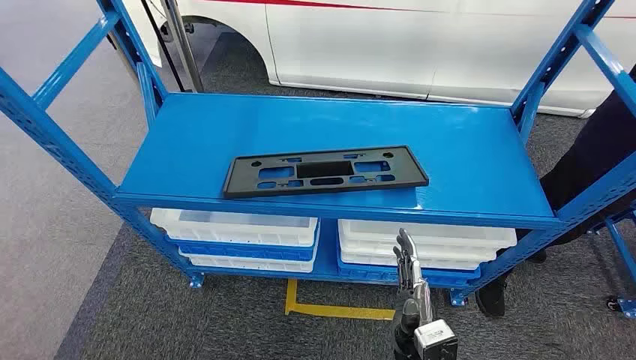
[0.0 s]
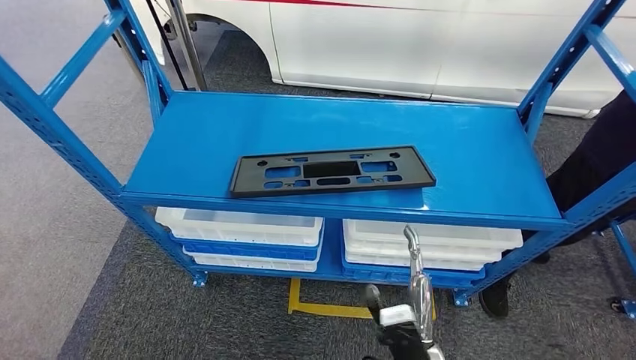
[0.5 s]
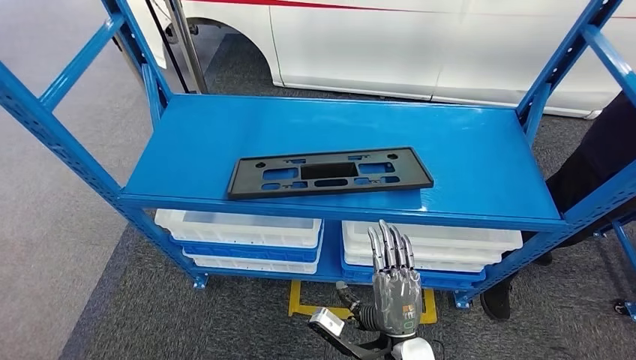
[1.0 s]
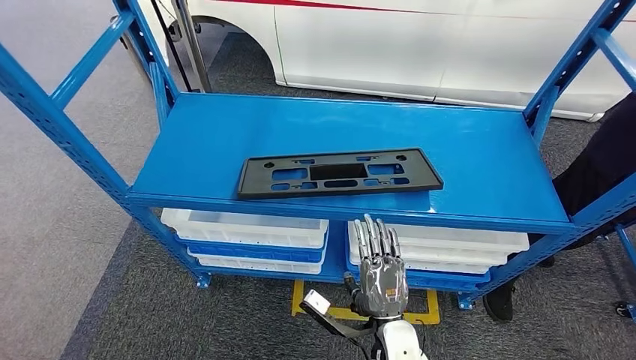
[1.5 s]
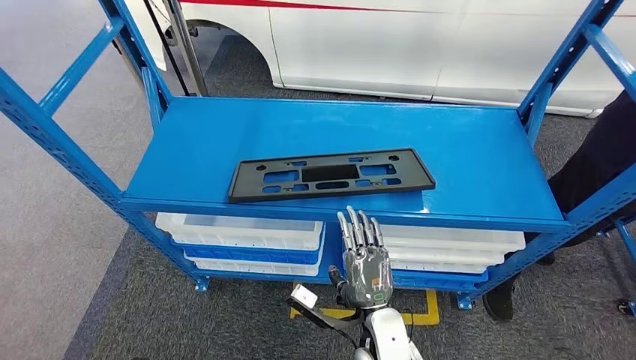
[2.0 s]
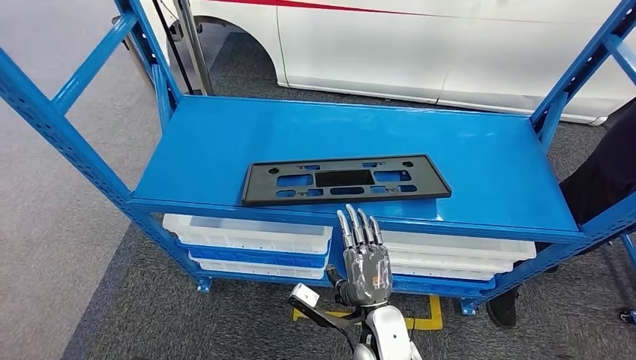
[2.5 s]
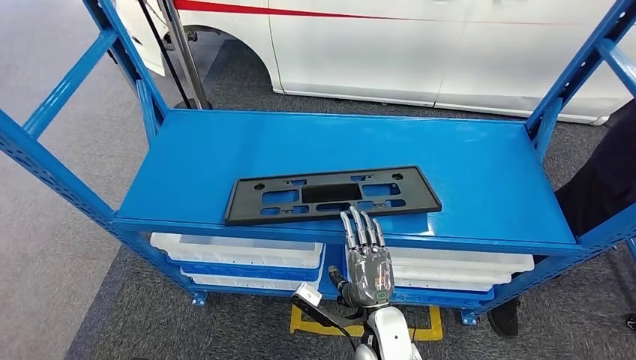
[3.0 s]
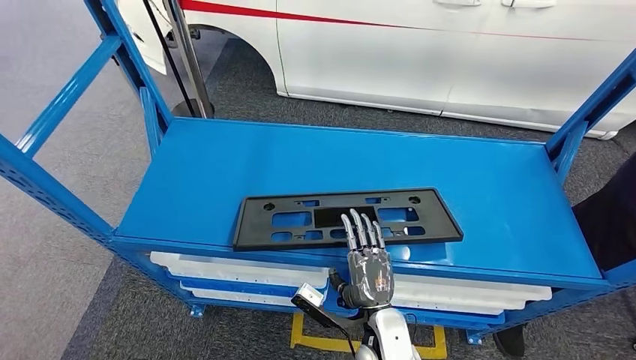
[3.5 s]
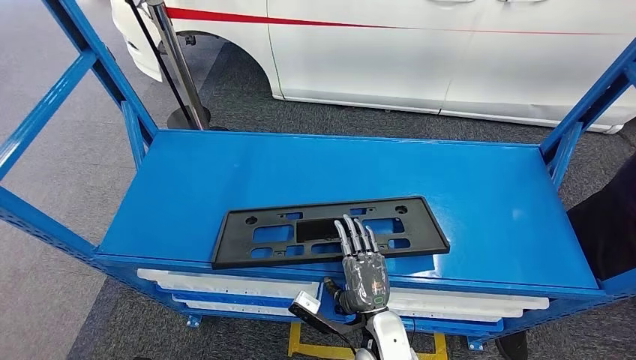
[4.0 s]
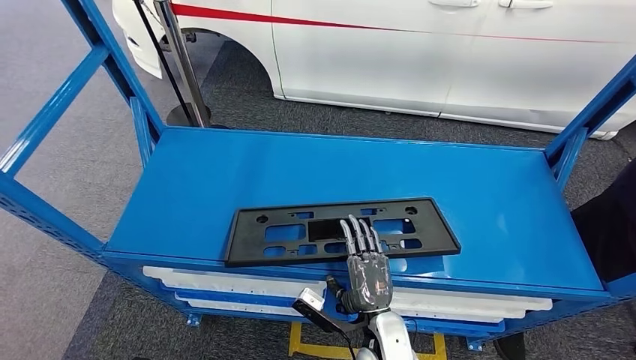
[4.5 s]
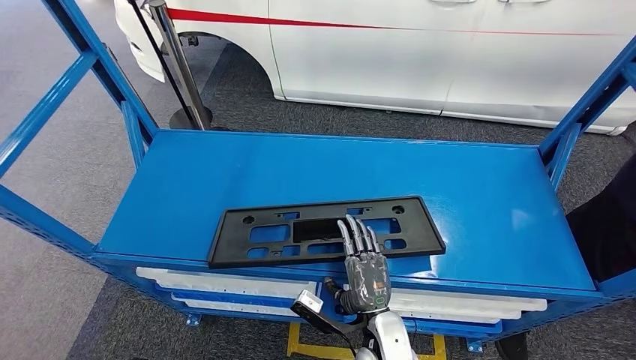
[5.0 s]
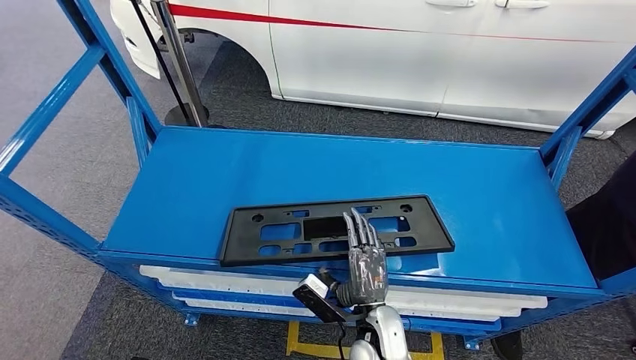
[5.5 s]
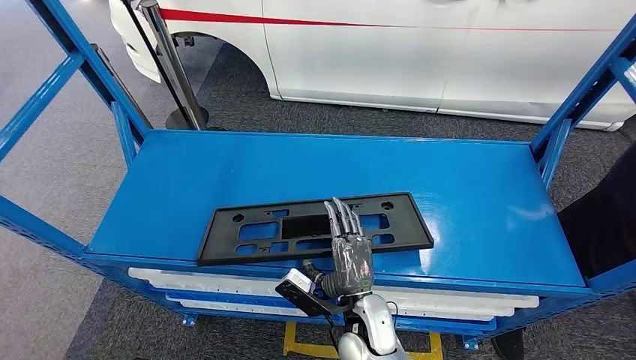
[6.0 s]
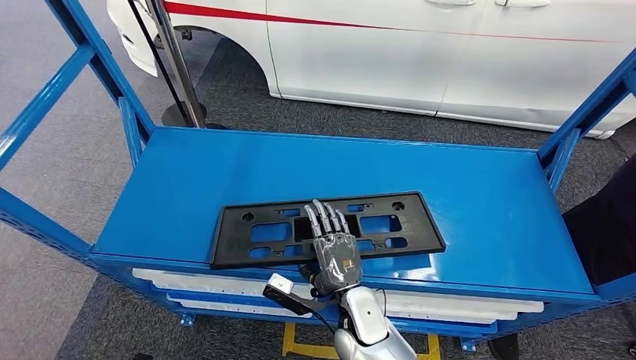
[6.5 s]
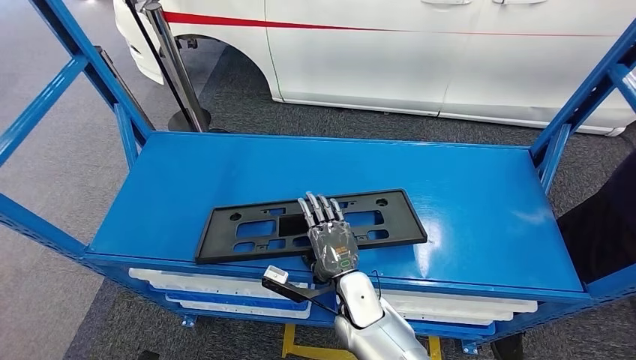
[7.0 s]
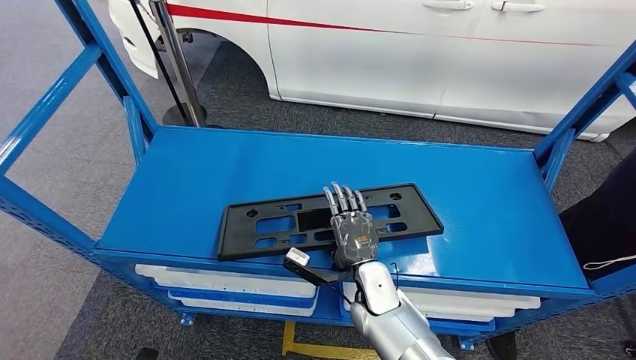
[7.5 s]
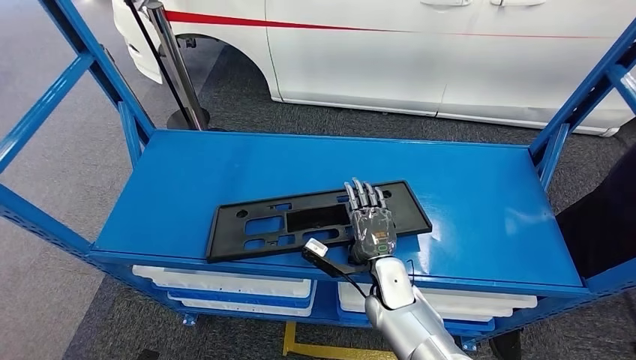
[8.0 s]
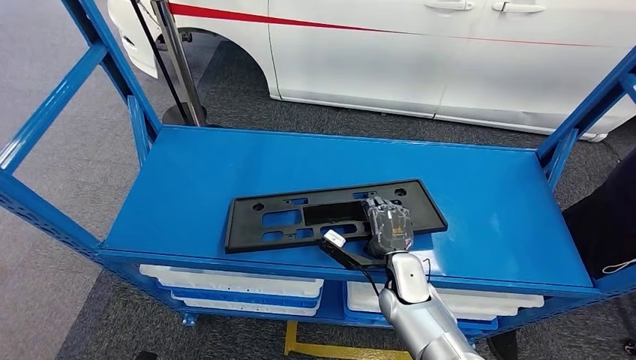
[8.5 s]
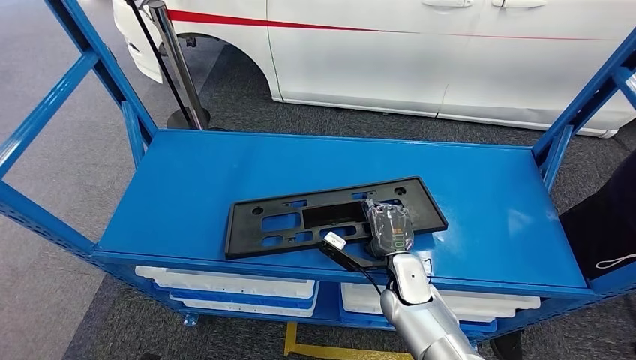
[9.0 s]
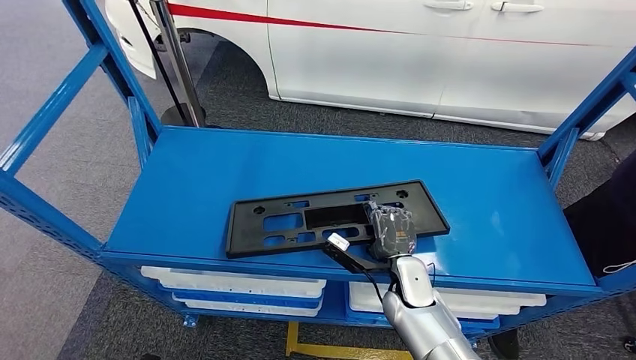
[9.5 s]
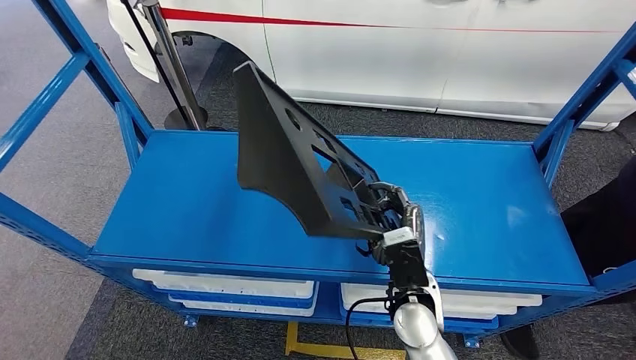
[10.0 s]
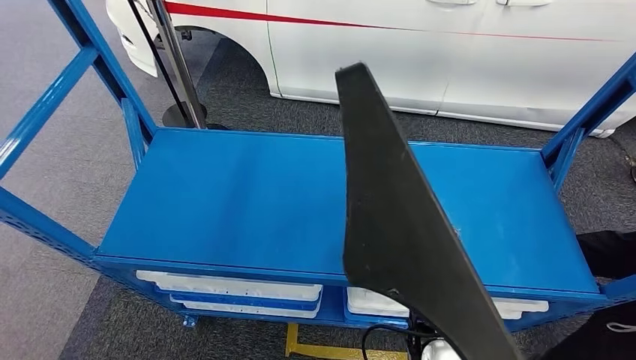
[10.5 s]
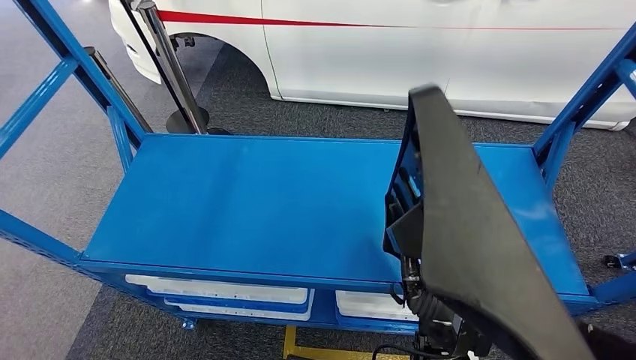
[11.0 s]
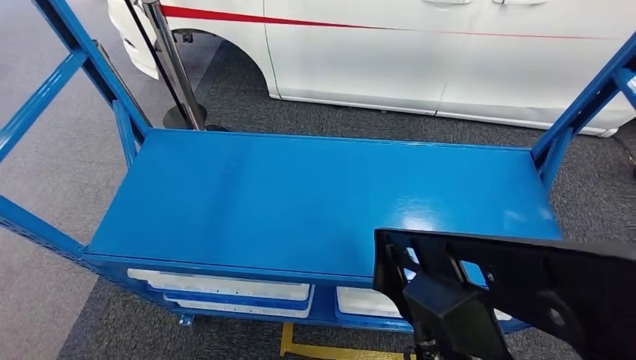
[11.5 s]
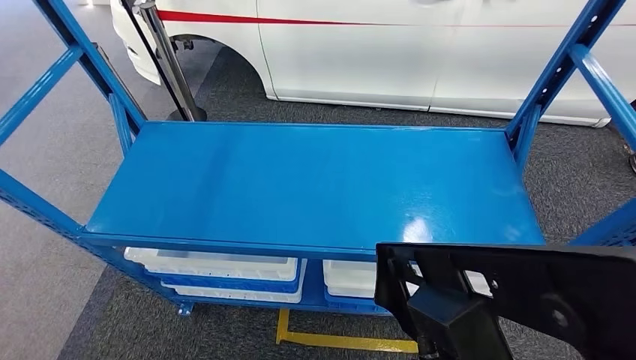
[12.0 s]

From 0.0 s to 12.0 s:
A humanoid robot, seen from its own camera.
Step, from 0.0 s to 11.0 s: Pick up the large material from the shelf.
From 4.0 s to 6.0 s: There are only small adjustments of the hands.
From 6.0 s to 8.0 s: The right hand goes roughly 10 cm forward and to the right.

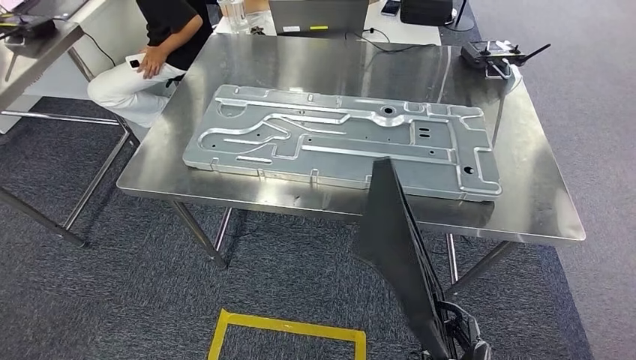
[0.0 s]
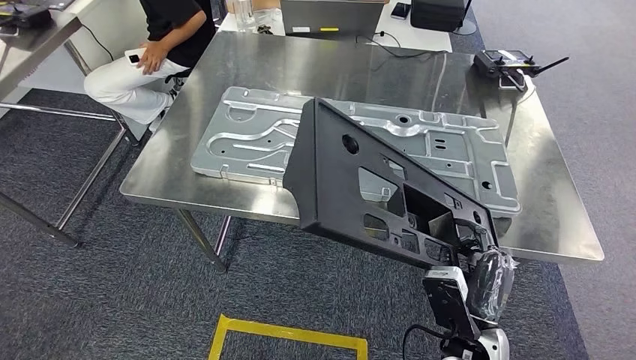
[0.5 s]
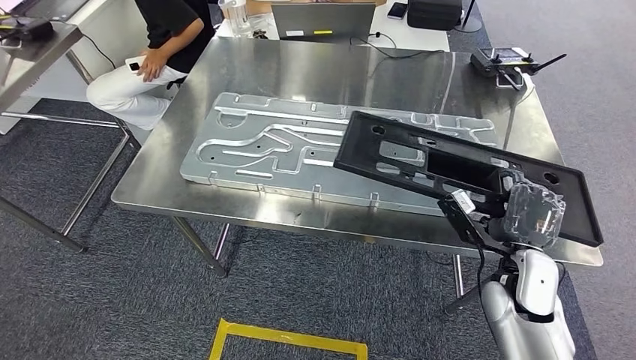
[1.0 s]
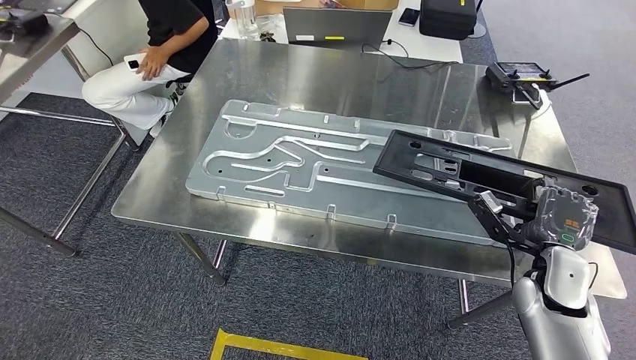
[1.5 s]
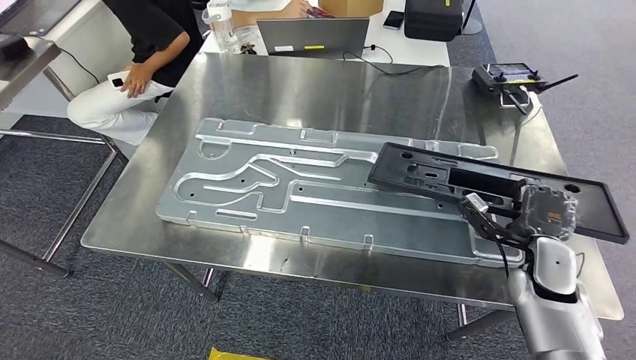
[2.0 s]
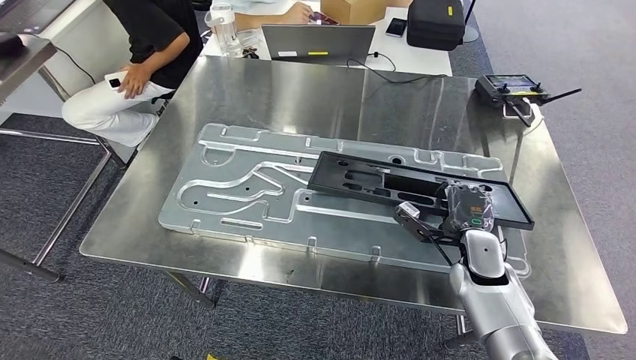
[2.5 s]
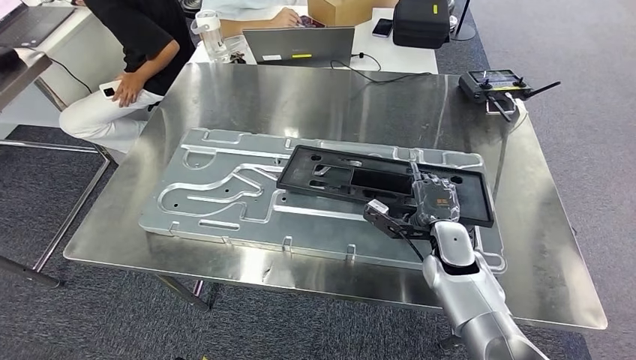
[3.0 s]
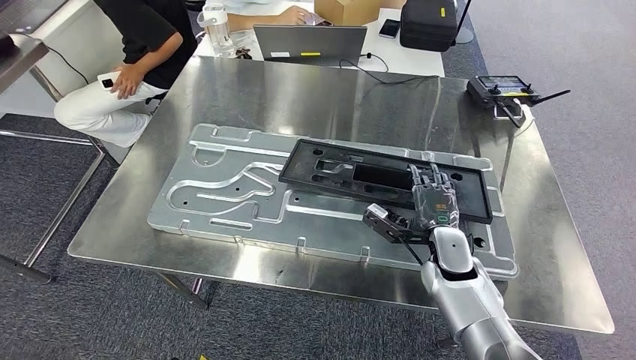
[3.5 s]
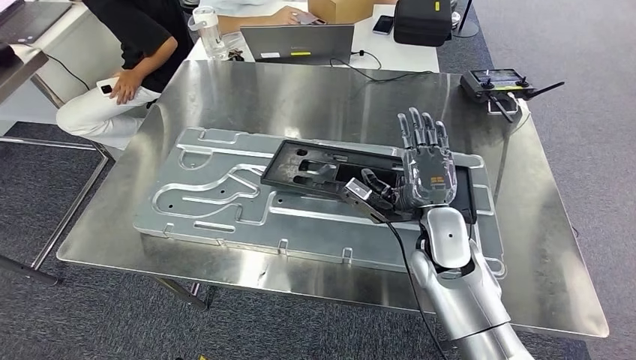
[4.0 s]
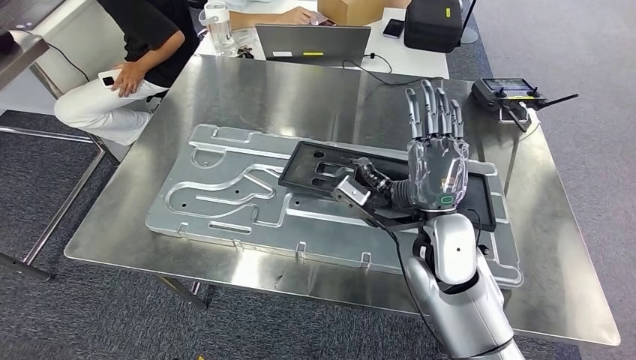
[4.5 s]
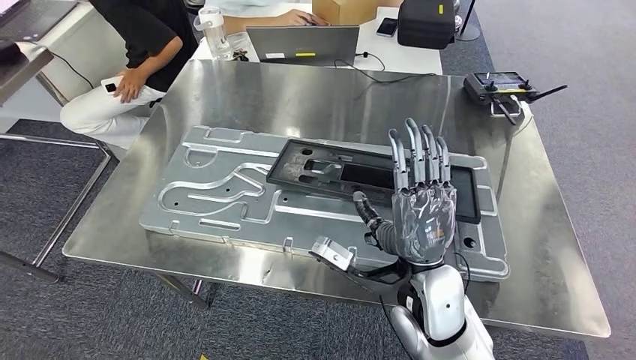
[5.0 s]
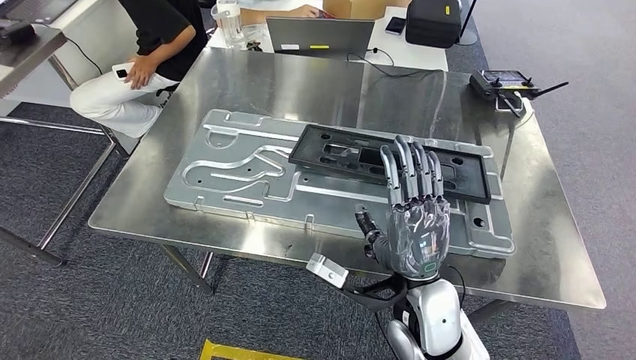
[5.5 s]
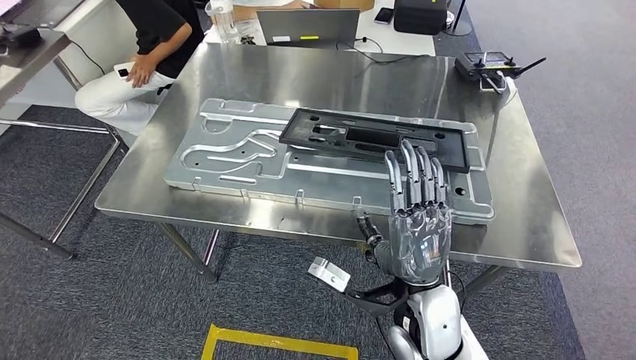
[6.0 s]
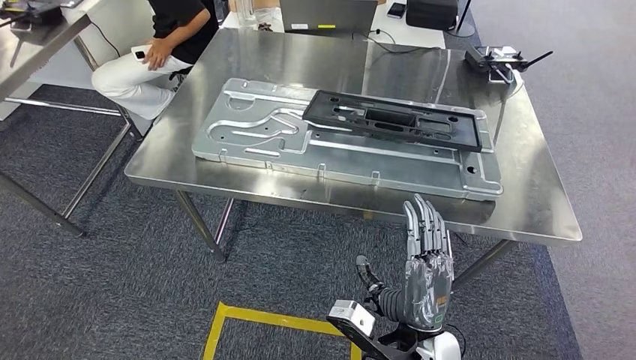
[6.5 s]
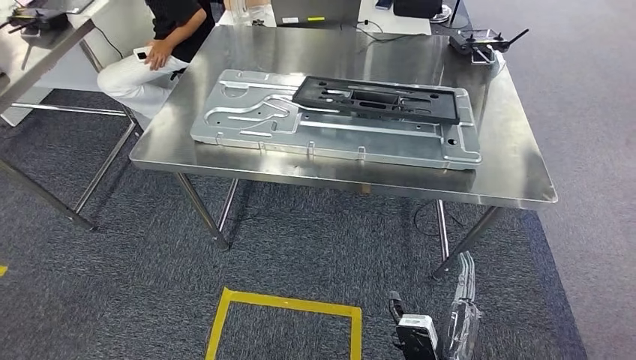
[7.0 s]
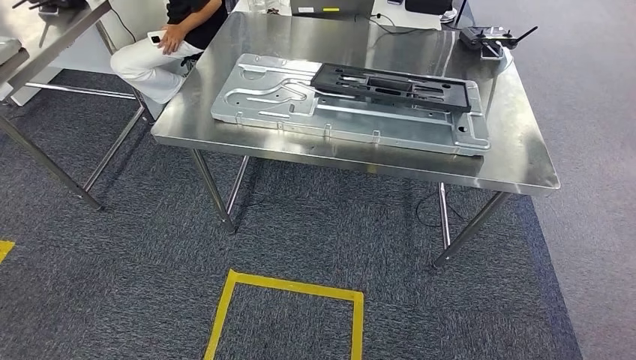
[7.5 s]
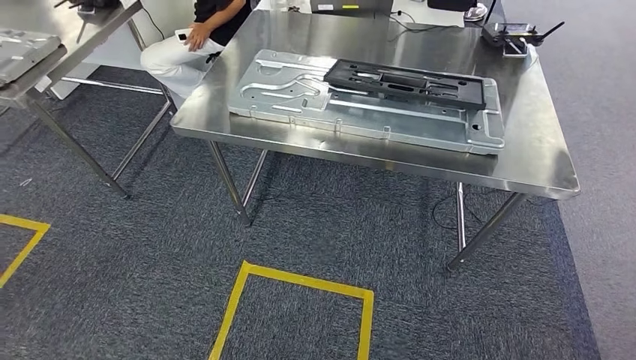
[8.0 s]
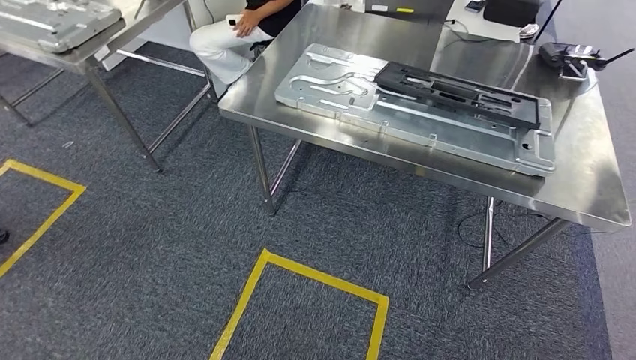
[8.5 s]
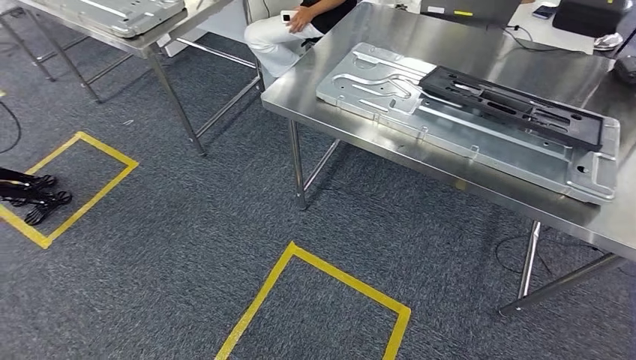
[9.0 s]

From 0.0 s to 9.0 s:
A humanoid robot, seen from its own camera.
Step, from 1.5 s to 4.0 s: Insert the large material into the corresponding hole on the workbench.
